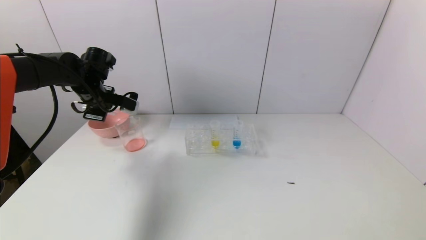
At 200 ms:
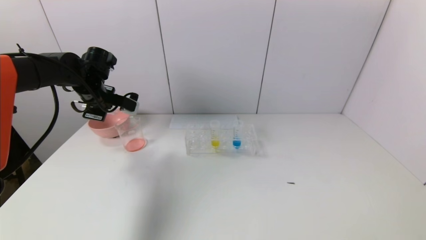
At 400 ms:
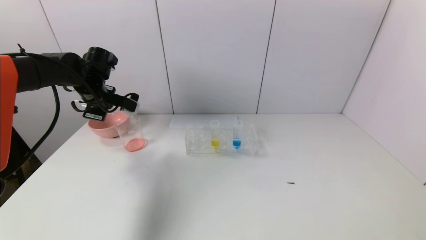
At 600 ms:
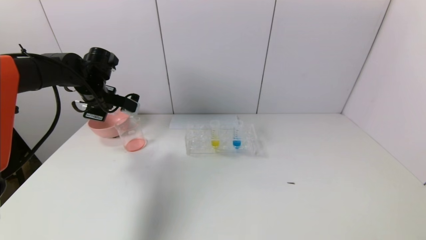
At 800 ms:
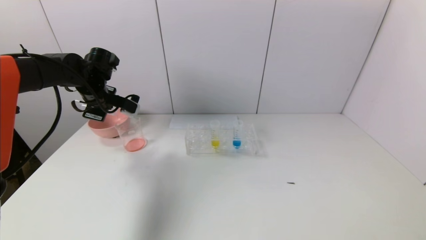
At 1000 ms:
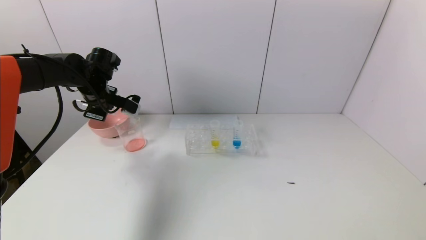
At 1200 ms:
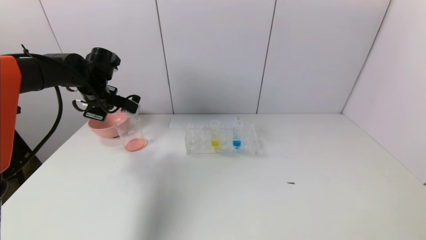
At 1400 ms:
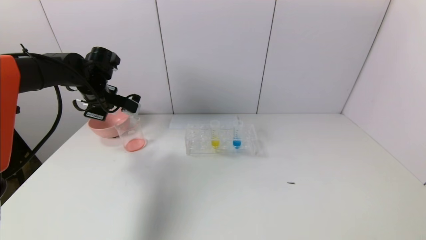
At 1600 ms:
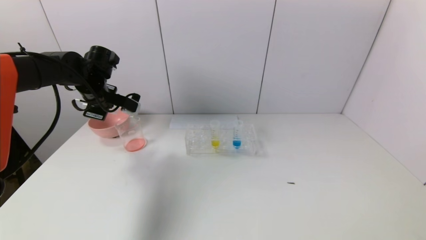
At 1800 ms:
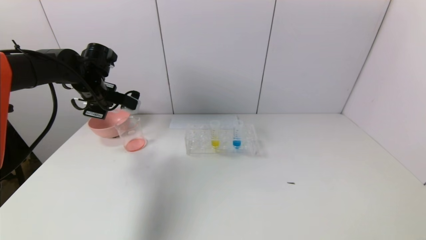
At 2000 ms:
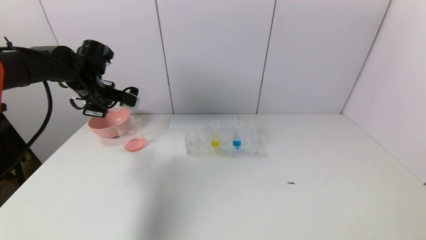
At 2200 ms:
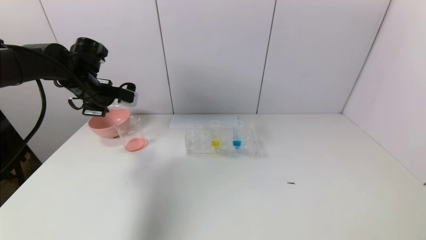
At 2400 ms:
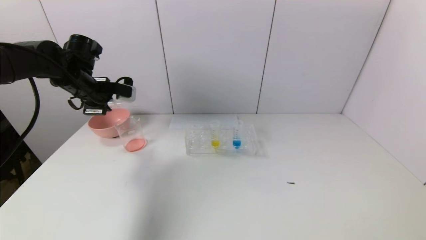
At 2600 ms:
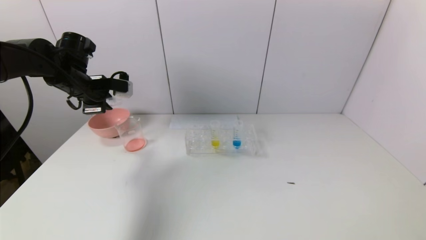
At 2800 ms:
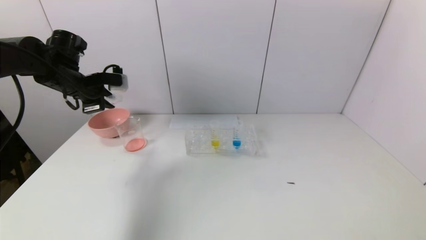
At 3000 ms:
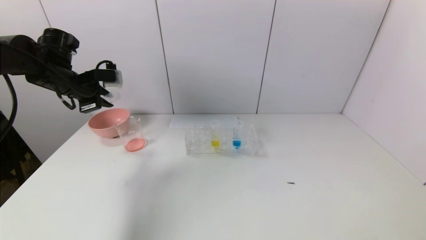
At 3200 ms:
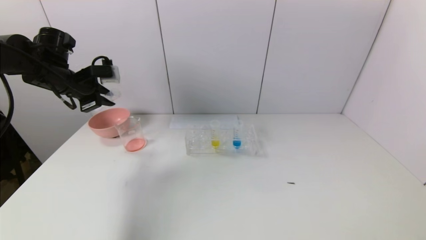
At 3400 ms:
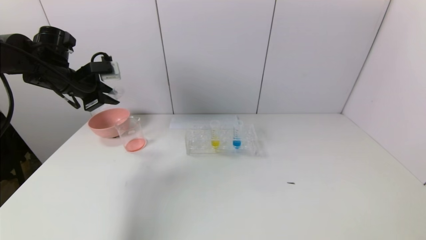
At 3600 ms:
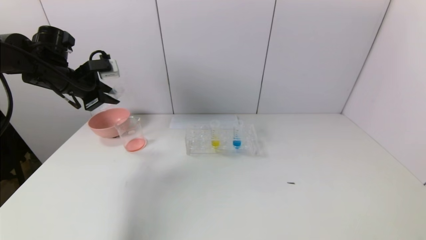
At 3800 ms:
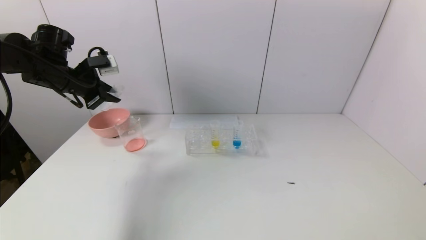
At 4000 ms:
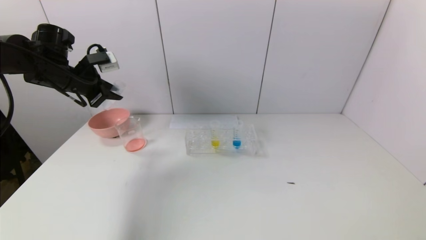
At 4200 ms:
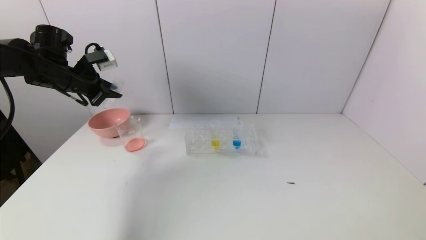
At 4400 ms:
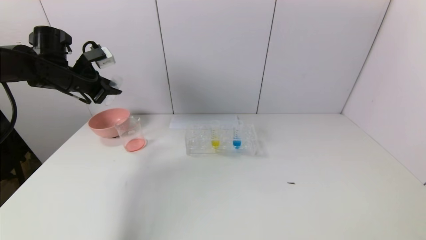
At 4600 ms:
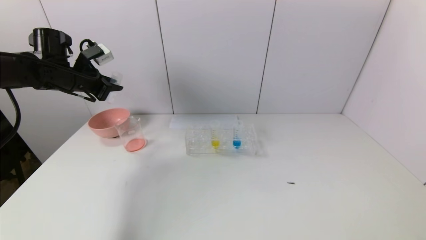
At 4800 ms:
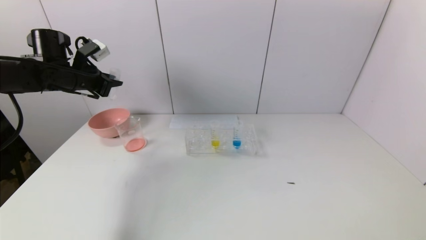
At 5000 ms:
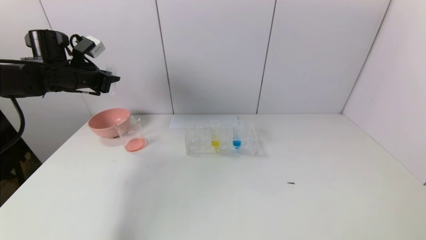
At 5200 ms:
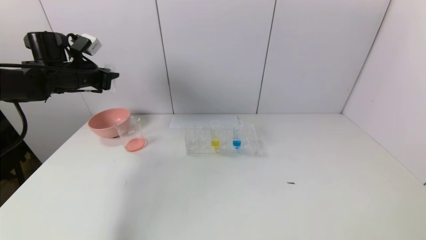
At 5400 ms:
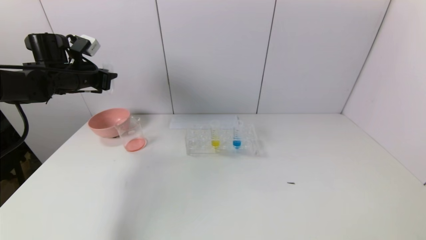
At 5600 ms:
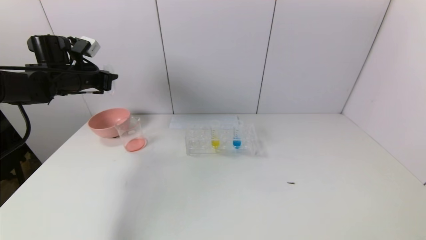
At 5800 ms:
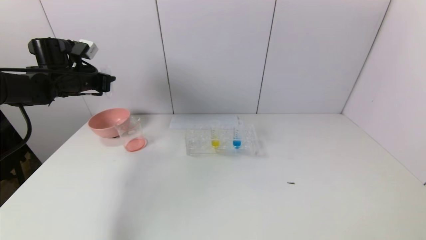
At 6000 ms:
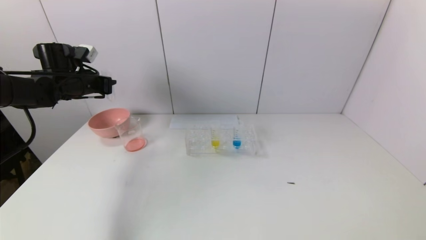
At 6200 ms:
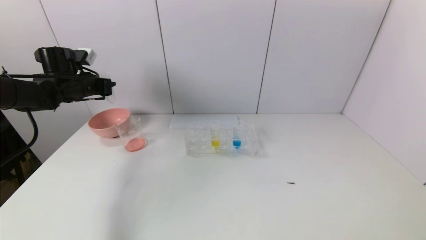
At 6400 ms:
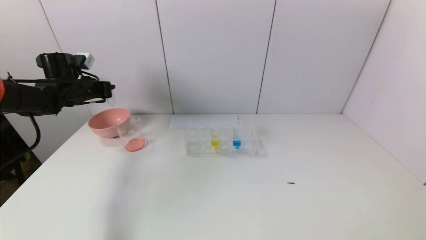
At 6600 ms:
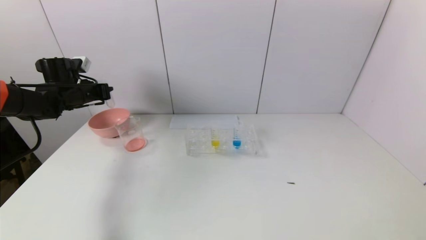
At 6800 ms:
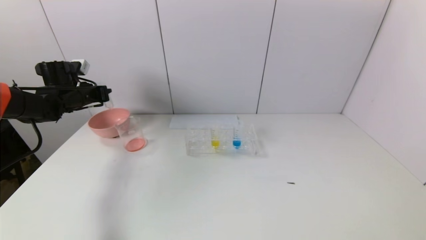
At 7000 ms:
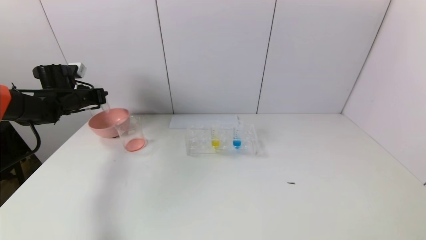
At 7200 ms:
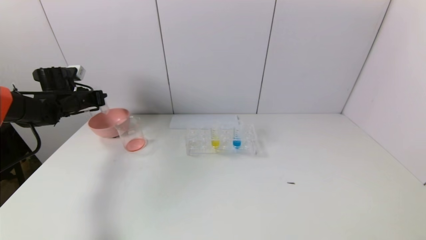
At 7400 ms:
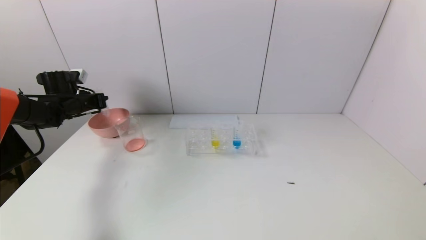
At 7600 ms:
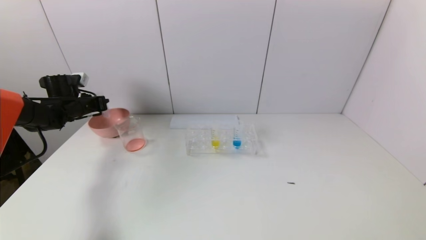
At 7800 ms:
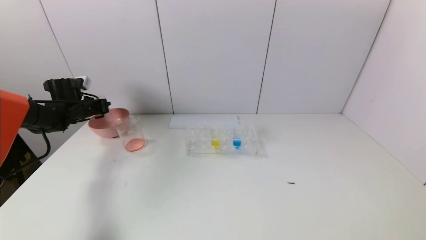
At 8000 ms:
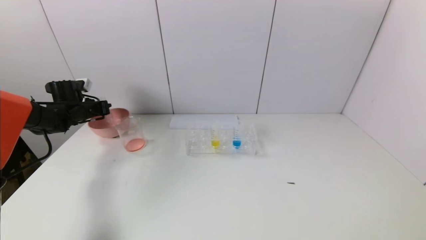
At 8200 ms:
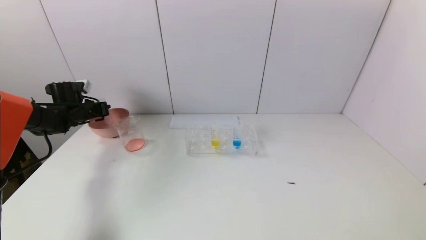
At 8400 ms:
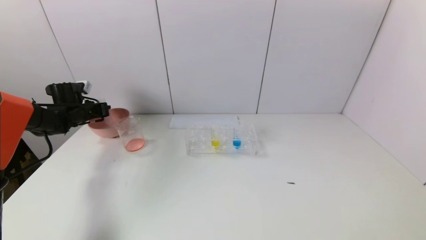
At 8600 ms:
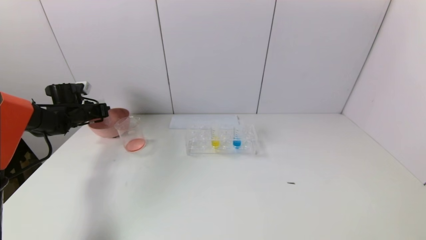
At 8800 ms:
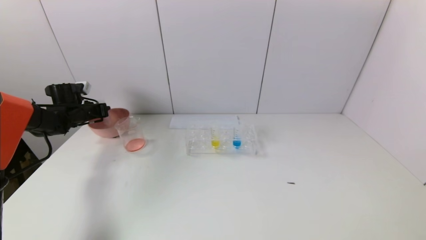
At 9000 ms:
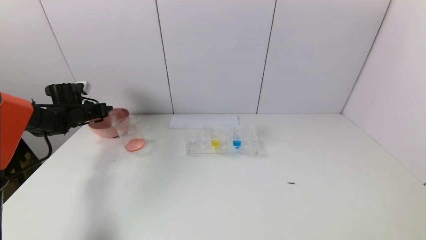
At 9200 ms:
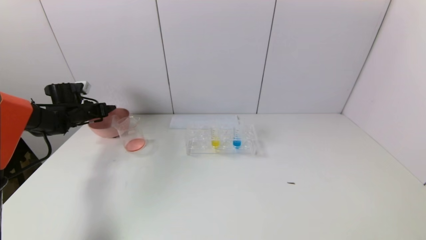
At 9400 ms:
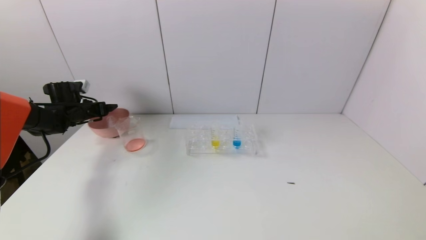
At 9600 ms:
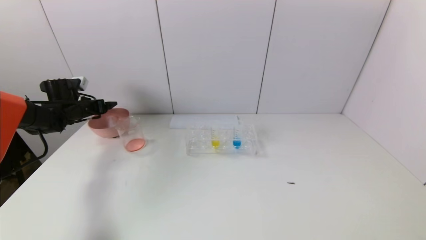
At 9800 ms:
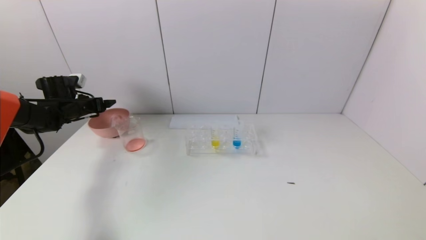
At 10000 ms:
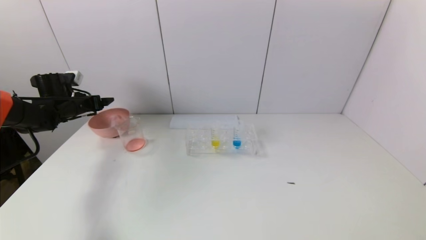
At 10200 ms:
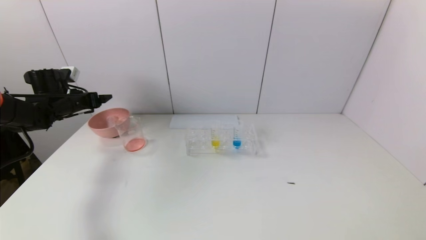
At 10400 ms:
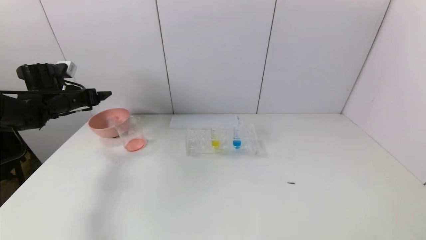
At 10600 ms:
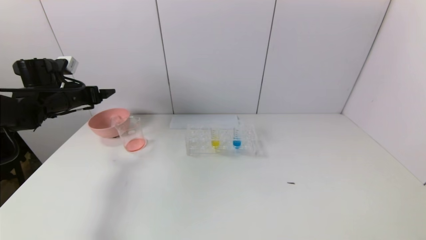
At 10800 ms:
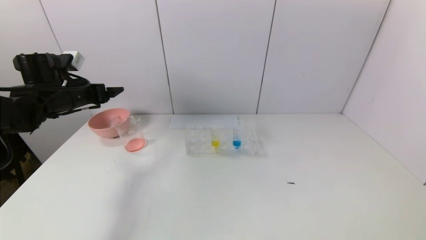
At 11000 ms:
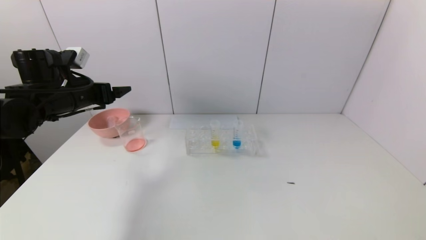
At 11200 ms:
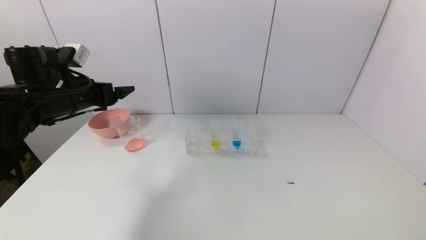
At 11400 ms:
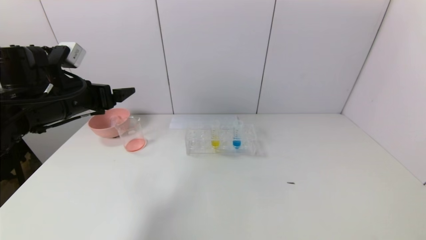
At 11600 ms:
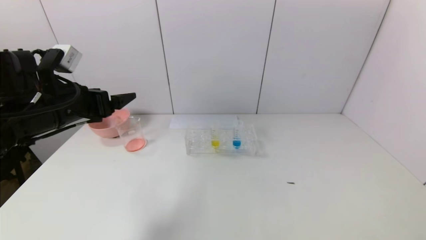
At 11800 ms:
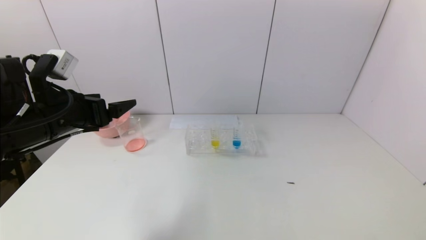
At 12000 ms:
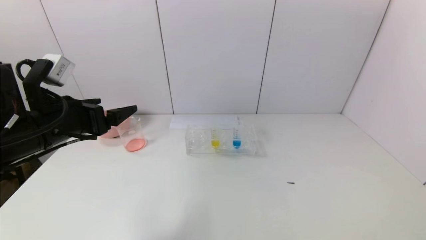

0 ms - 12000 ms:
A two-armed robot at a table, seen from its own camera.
Task of the whole recording: pick up the test tube with yellow pigment and the test tube with red pigment by grippers and pour them into the beaker.
Step, 1600 ms - 9000 ms: Place the test tube into the pink bowl with the left gripper.
0 ms - 1600 ms: The grippers stay close to where they were, moving slightly.
1600 ms - 3000 ms: The left gripper ends up roughly 5 cm from where it was.
6000 ms - 7600 ms: The left gripper goes about 10 cm downward and to the left.
7600 ms - 9000 ms: The left gripper opens up.
9000 ms - 10400 ms: The left gripper moves upward and backward, approximately 10 cm, and opens its fingers.
10400 ms - 12000 ms: The left gripper goes some 25 cm backward and to the right.

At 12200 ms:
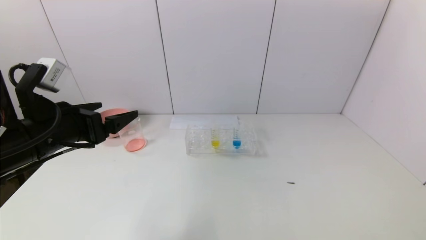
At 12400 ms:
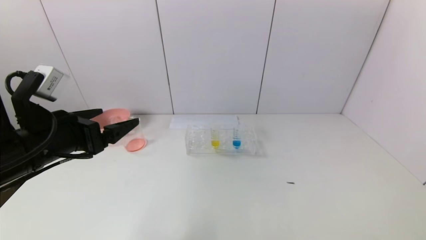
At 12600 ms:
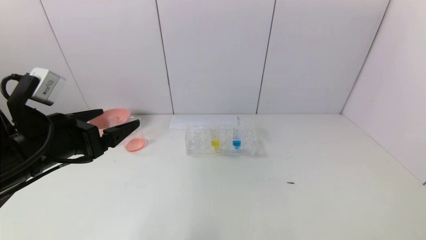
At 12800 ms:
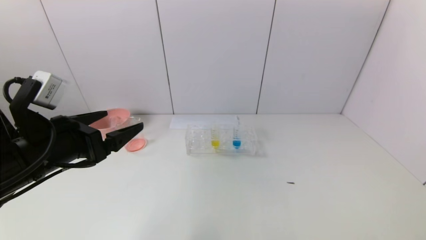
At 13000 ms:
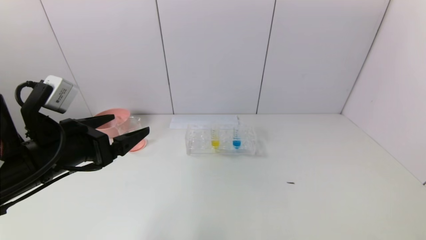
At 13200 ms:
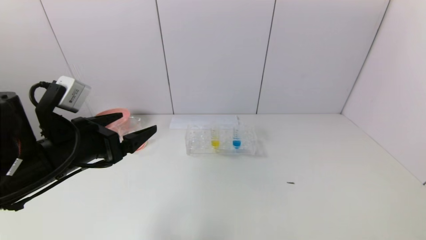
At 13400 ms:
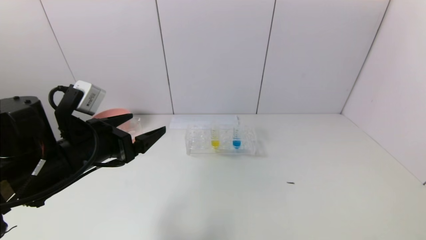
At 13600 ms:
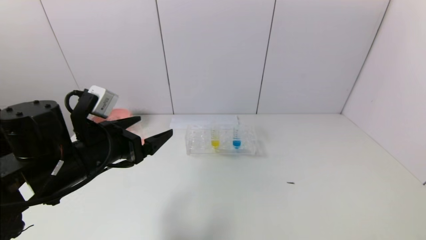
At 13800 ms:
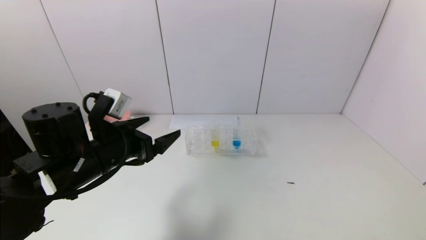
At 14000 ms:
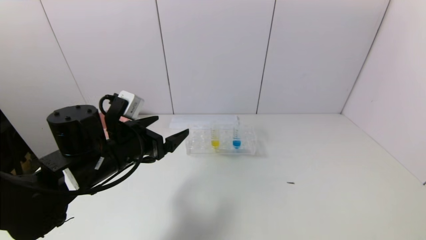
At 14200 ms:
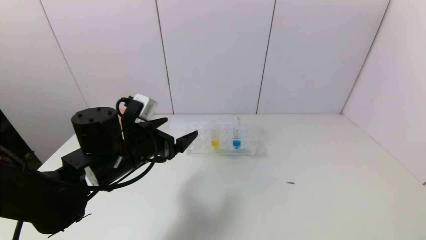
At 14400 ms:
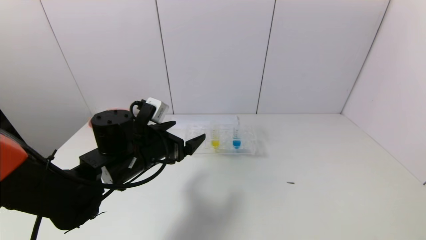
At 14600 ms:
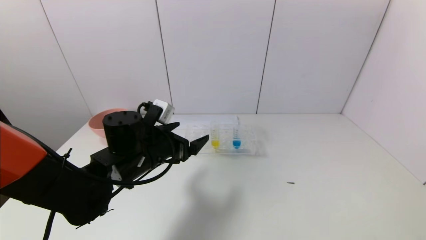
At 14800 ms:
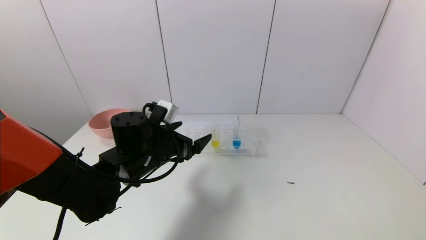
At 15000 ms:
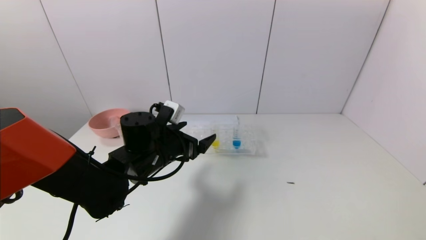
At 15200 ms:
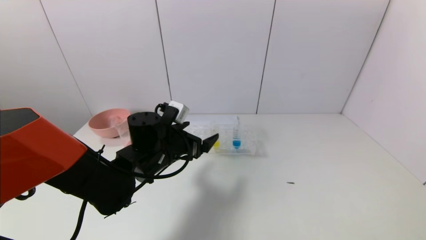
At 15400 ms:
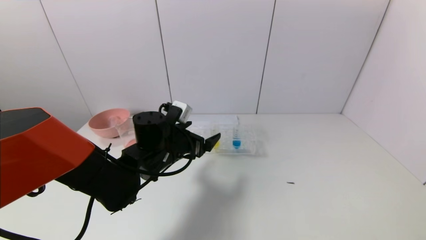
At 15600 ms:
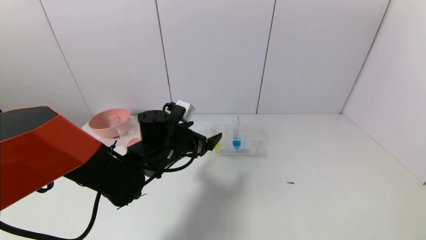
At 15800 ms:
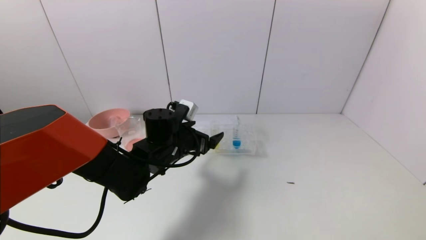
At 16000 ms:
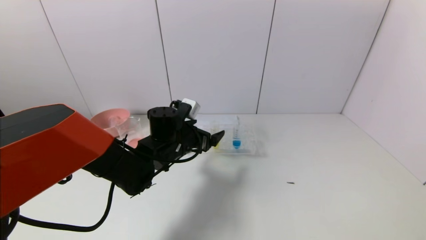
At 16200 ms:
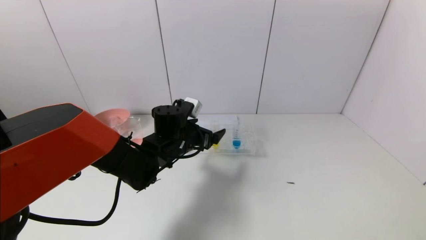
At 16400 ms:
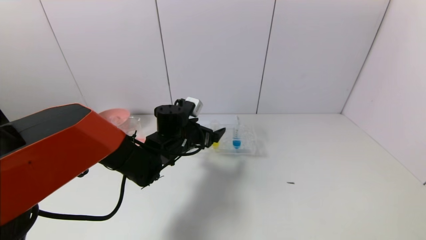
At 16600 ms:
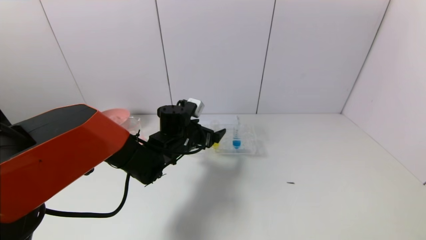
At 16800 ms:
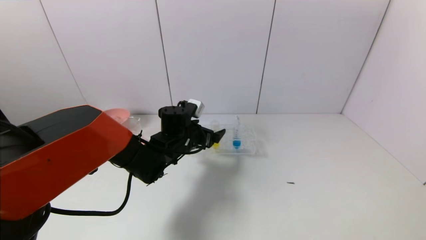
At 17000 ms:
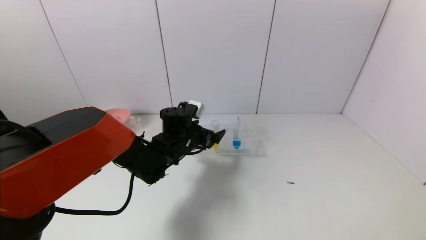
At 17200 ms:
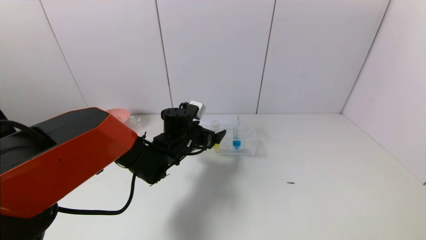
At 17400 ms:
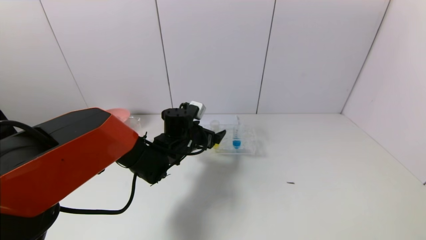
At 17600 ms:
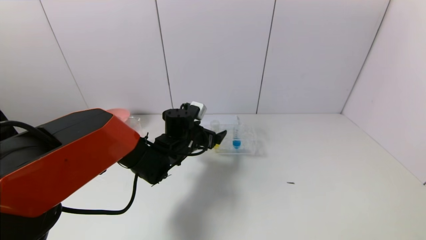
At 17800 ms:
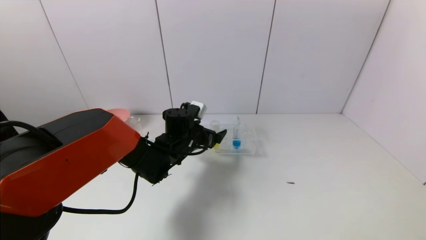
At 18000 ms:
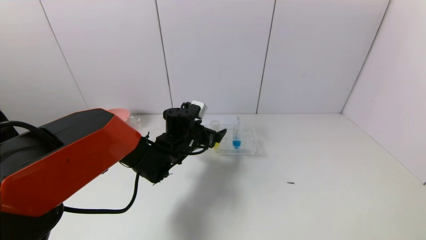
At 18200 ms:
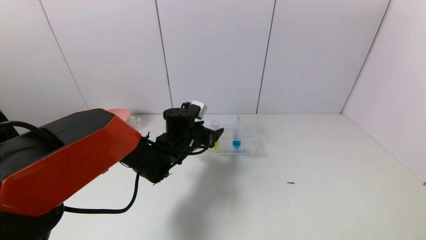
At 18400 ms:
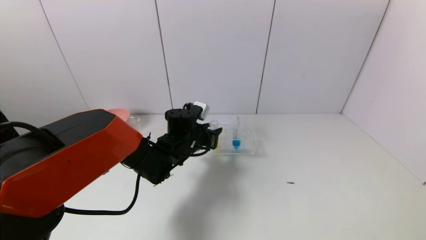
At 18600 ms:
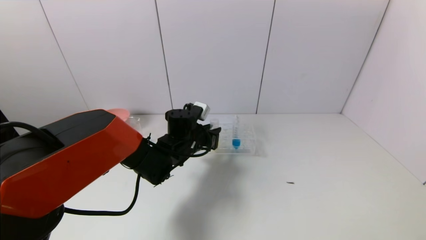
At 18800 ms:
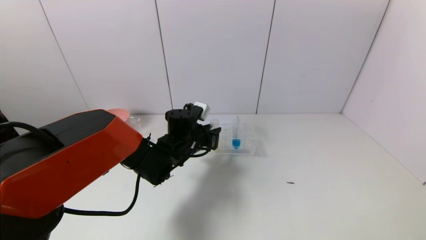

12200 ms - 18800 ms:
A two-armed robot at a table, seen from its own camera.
Task of the whole recording: pick up the test tube with yellow pigment and the test tube with red pigment by grippers and pour them into the beaker.
12200 ms - 13800 ms: The left gripper travels to the right and downward by about 10 cm.
13800 ms - 15400 ms: The left gripper shifts about 15 cm to the right, forward and downward.
15400 ms - 17200 ms: The left gripper is displaced forward by about 5 cm.
17200 ms - 18800 ms: The left gripper closes.
